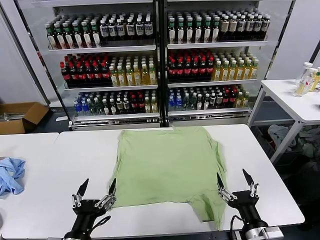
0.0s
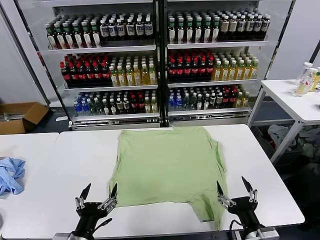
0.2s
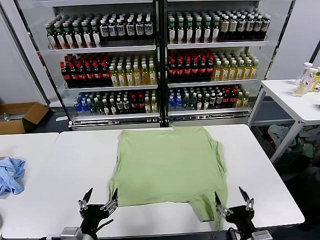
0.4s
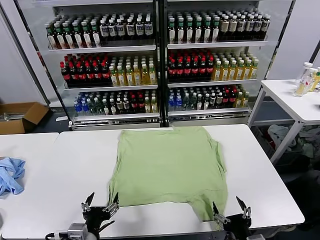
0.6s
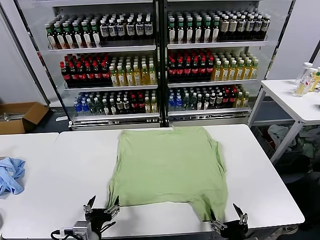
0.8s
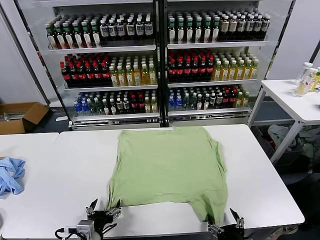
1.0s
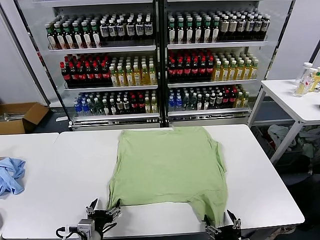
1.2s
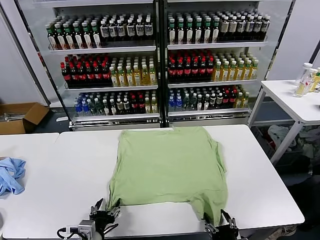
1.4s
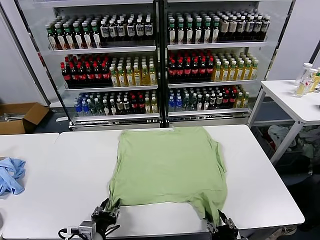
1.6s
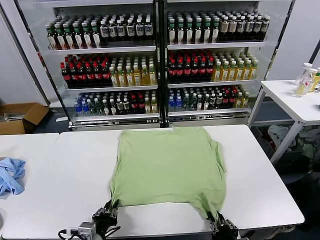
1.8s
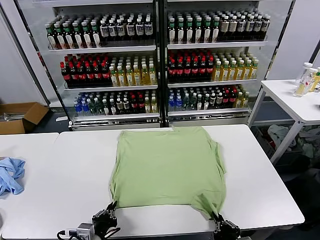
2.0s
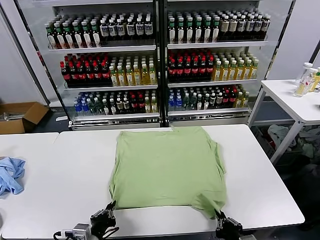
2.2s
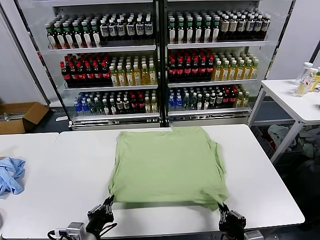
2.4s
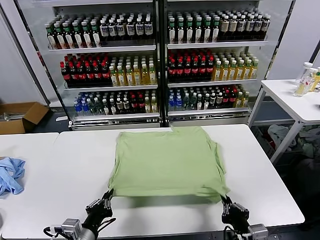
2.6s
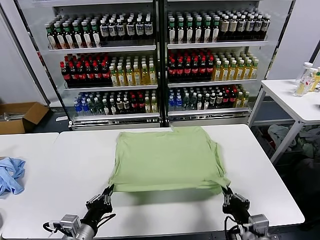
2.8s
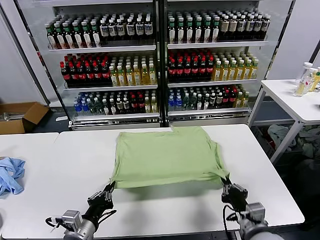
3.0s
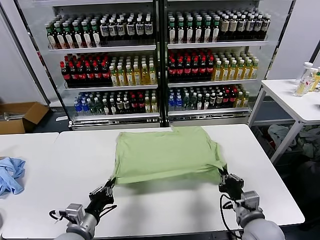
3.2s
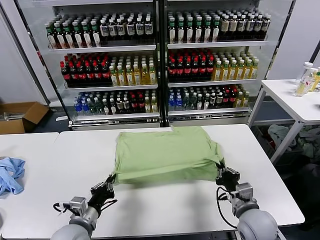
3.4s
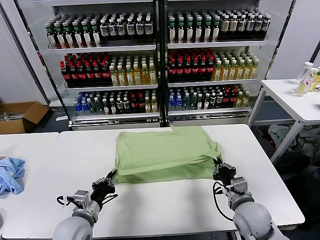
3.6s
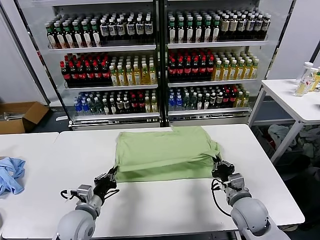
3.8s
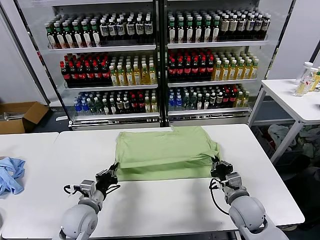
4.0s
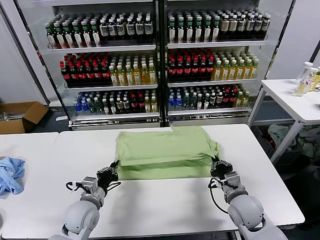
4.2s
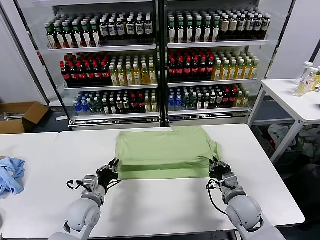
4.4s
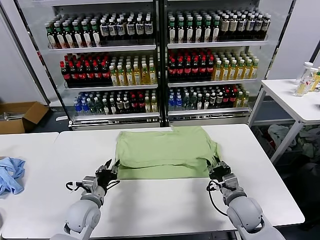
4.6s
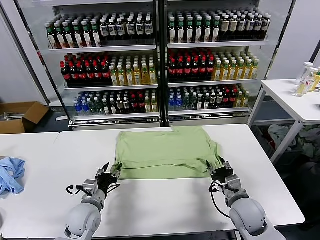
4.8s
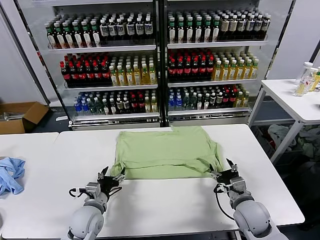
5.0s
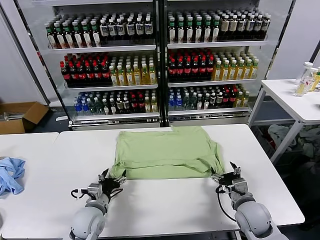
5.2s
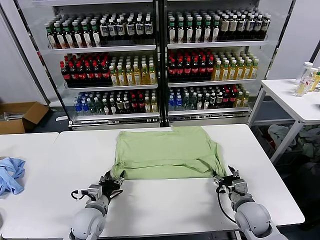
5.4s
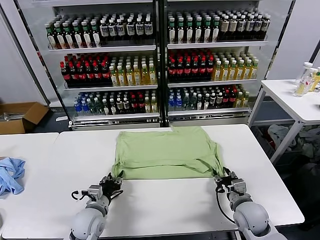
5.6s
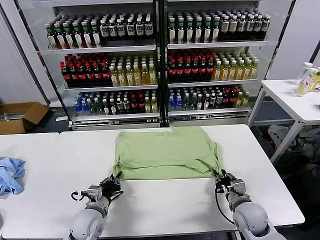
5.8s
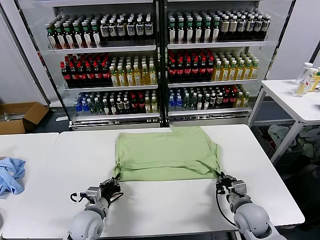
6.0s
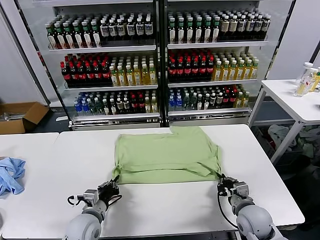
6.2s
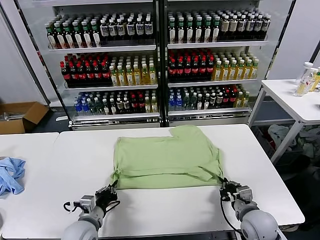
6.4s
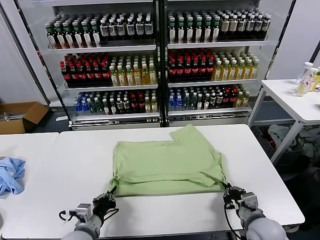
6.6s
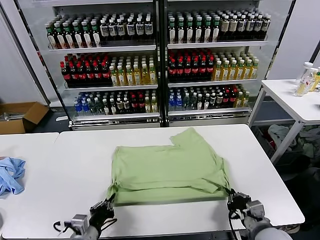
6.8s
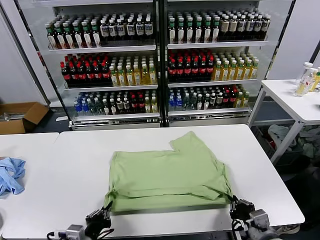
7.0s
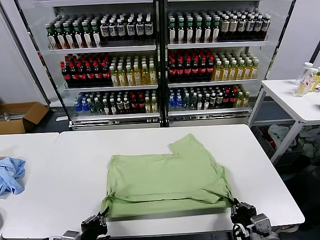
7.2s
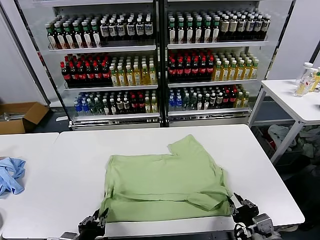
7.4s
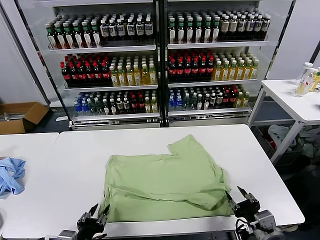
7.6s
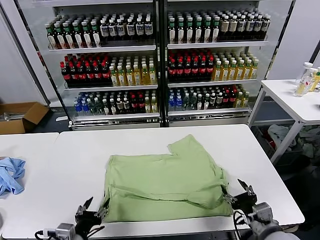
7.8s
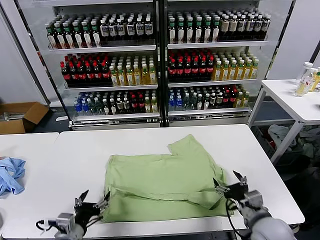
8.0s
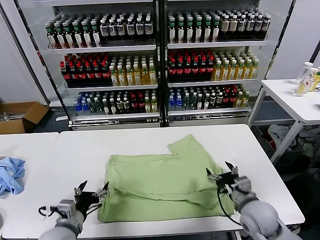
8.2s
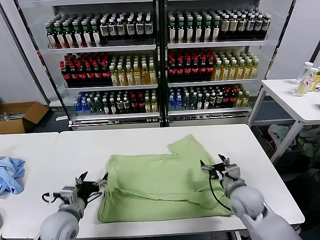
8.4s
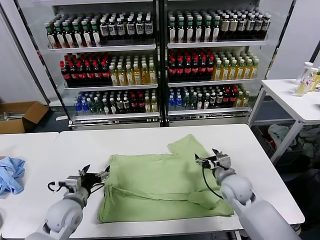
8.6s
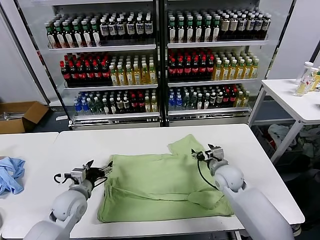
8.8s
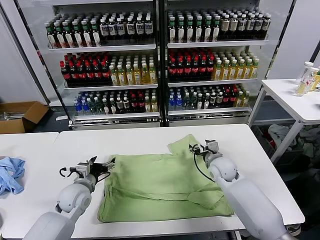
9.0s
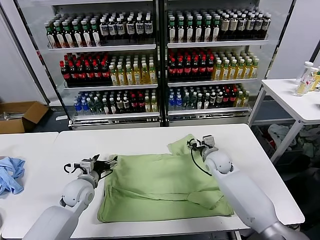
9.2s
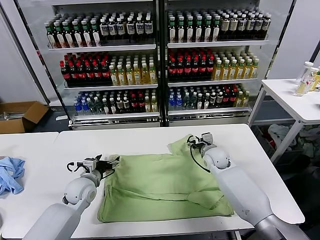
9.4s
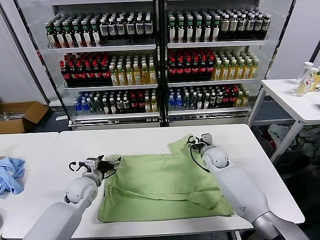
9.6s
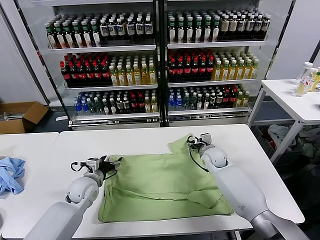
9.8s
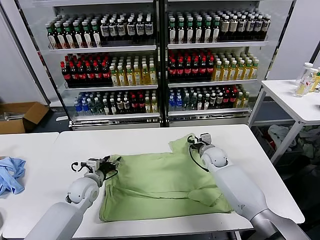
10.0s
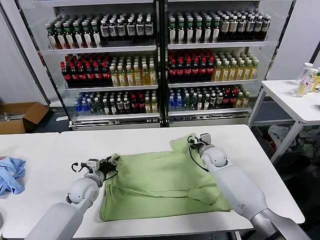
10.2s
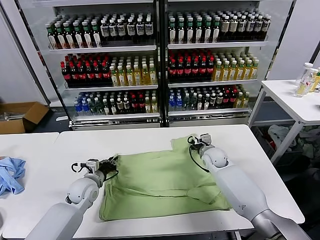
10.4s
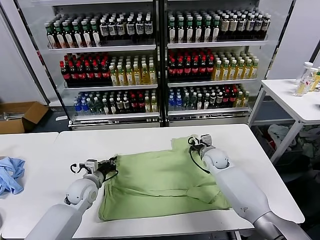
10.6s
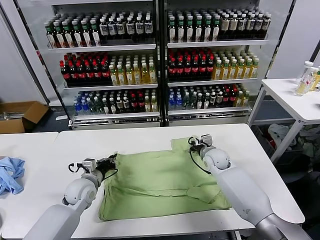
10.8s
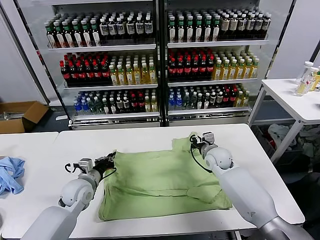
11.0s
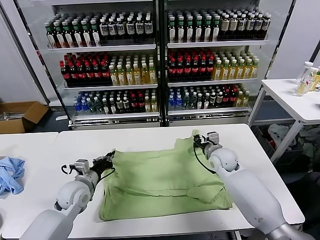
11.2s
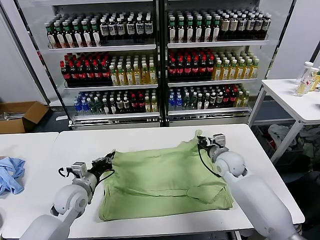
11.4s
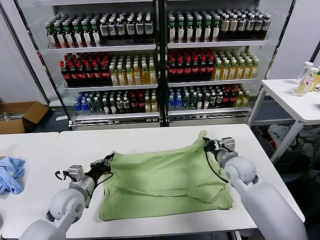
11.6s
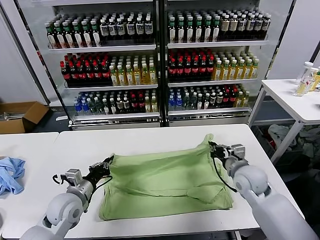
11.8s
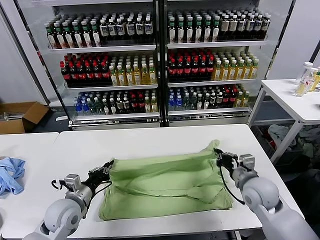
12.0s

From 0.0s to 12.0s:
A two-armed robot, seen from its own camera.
Task of the whole recording: fold and organize the clothes.
Step, from 0.0s to 2.2s: use both grippers simultaneously to clamp the lower edge of the clothing fabric.
Step, from 2.4s to 4.8s: use both grippers to drag the lower edge of the fabric forward and fold it over the upper edge.
Step, from 5.0s to 7.4s: Drag the clothes downward with both gripper.
Step, from 7.6s to 10.4s: use both grippers simultaneously to clamp the upper edge of the clothing fabric.
From 1.6s to 3.0s: The right gripper shifts about 10 cm forward, while the left gripper ends up approximately 5 cm from where it was.
From 3.0s to 4.4s: The left gripper goes approximately 15 cm forward, and opens up. The right gripper travels forward by roughly 10 cm, and opens up.
From 4.4s to 6.0s: The right gripper closes up. Meanwhile the left gripper closes.
From 6.0s to 7.6s: The left gripper moves backward, roughly 15 cm, and opens up; the right gripper moves backward and upward, roughly 15 cm, and opens up.
From 7.6s to 9.0s: Both grippers move forward, roughly 25 cm. The left gripper opens its fingers.
From 9.0s to 10.4s: The left gripper closes. Meanwhile the right gripper shifts by approximately 5 cm, and closes.
From 10.4s to 12.0s: The right gripper moves backward, to the right and upward, about 25 cm. Meanwhile the left gripper moves backward, approximately 10 cm.

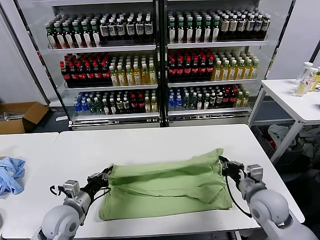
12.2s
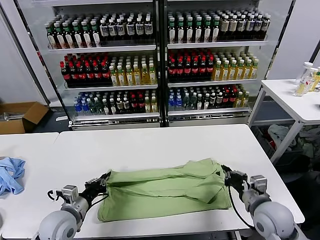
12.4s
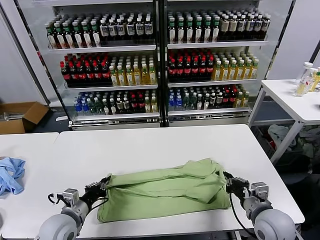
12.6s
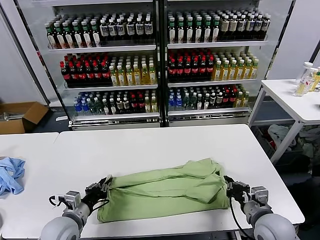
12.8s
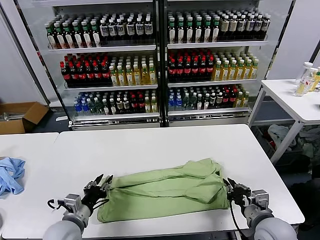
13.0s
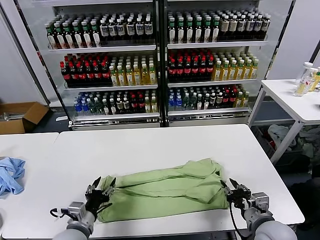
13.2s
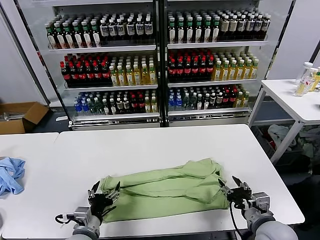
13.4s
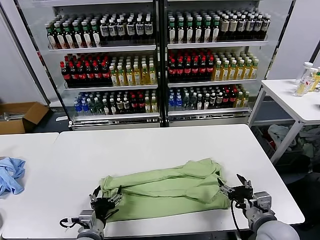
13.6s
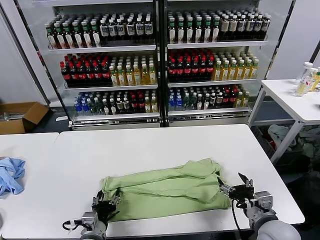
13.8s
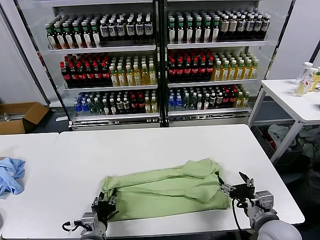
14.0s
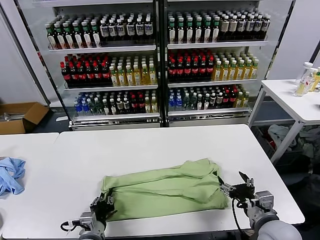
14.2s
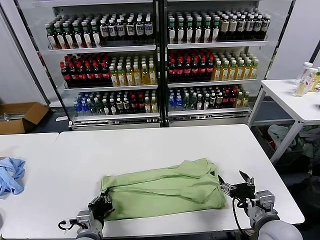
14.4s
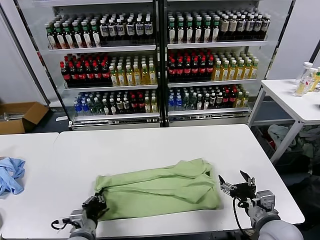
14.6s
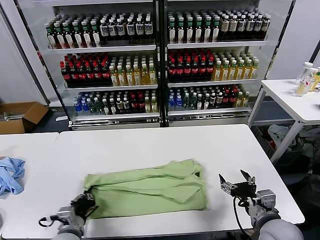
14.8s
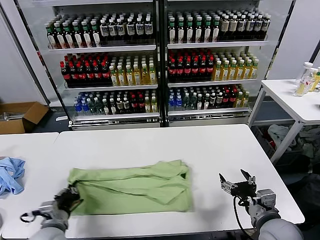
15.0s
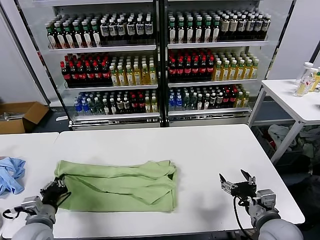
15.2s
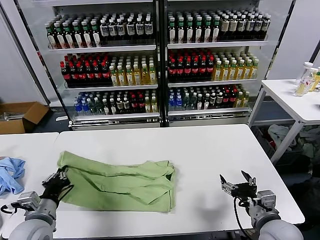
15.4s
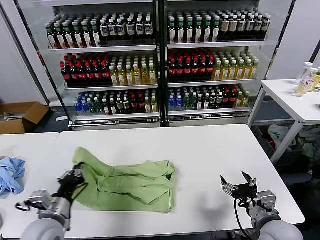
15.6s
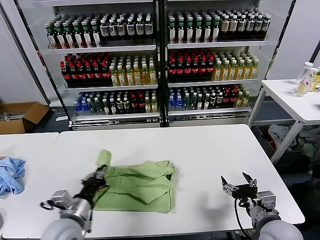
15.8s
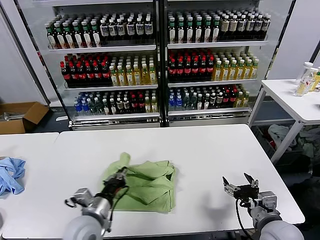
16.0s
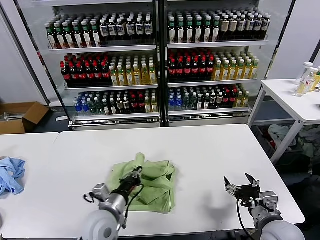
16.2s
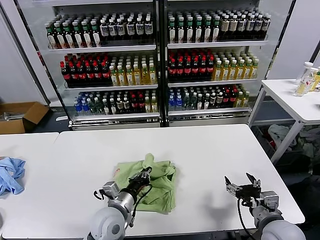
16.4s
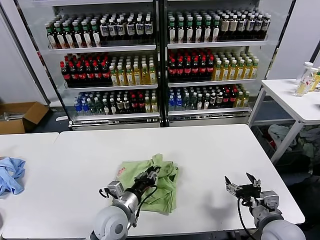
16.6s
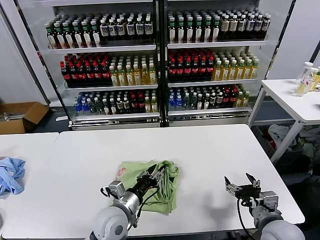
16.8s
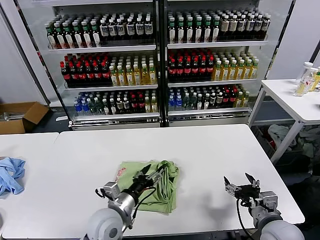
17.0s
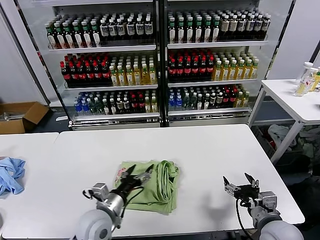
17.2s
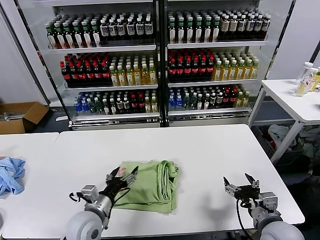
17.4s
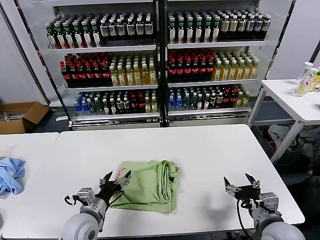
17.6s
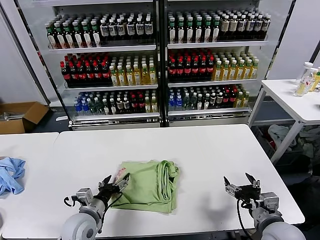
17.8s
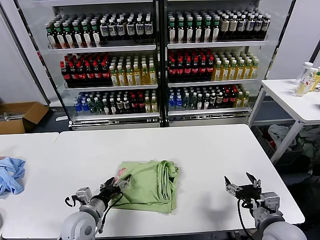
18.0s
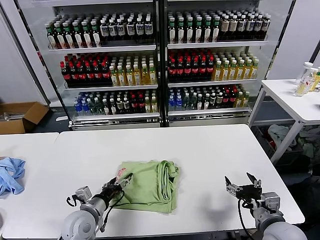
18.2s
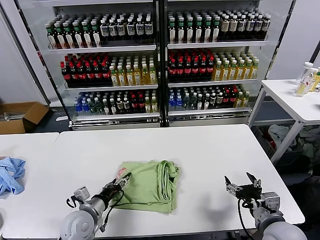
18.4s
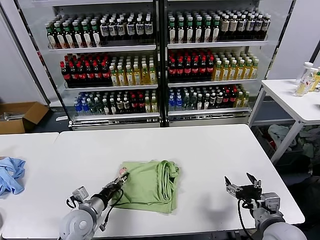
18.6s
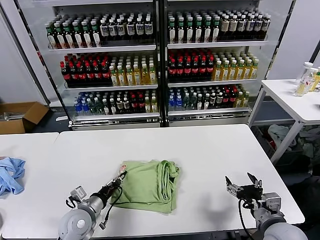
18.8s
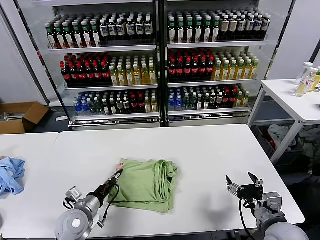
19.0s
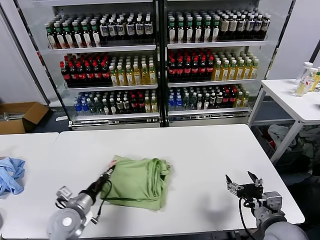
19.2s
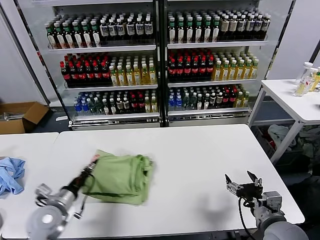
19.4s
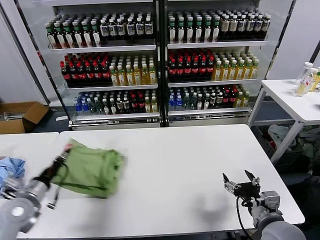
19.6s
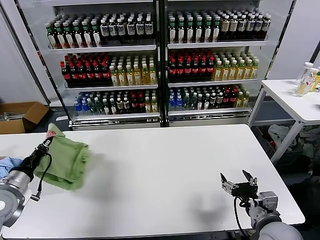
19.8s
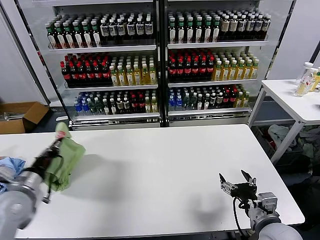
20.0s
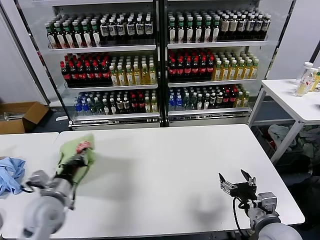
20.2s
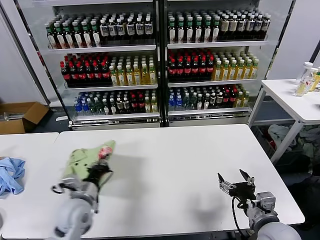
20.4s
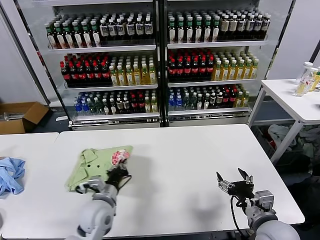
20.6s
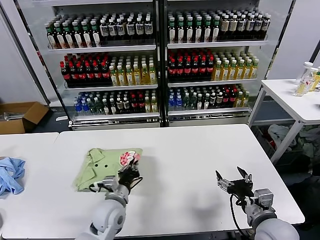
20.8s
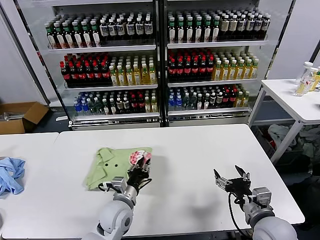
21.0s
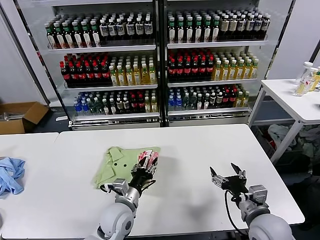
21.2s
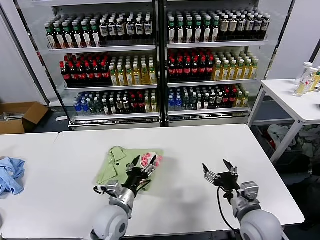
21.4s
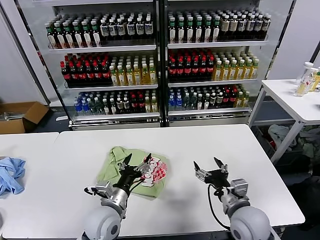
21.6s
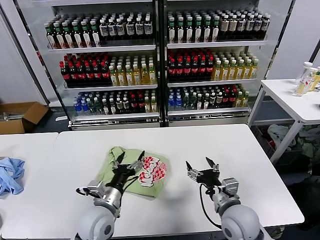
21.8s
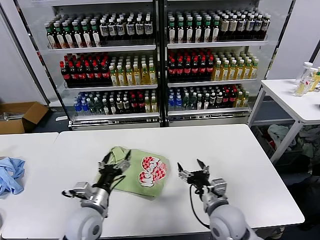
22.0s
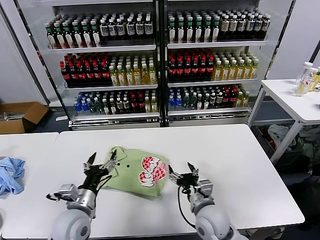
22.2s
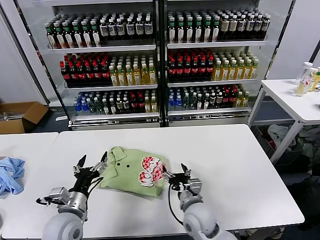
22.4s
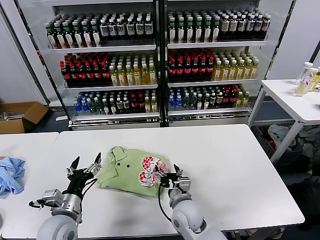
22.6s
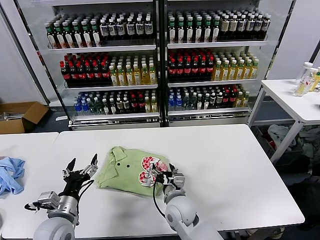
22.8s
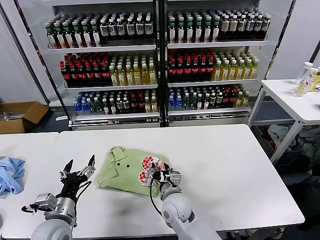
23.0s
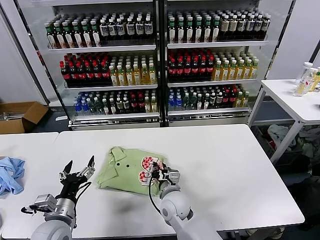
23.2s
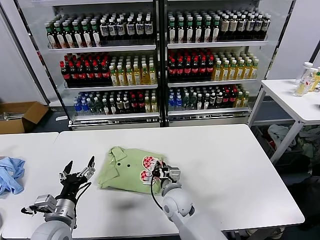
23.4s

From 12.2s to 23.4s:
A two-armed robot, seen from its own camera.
Task of the whole recording: fold and organize the clothes.
Step, from 13.2s to 14.4s: use the left gripper to clamp the left edge of the fabric.
Step, from 14.6s to 16.8s: use the left gripper to drag the left edge of the fabric to the left and folds it over the right edge.
Step, from 17.0s to 21.4s: Flip the folded clothes over with left gripper.
From 12.2s to 13.8s: The right gripper is displaced backward by about 5 cm, and opens. Meanwhile the left gripper goes approximately 10 cm to the right, backward and downward, and opens up.
From 13.8s to 15.4s: The left gripper moves to the left and upward, roughly 15 cm, and closes.
From 15.4s to 17.0s: The left gripper moves to the right, approximately 20 cm, and opens its fingers.
From 17.0s to 18.6s: The left gripper goes approximately 10 cm to the left and downward, and closes.
From 18.6s to 20.2s: The left gripper heads upward and to the left, covering roughly 10 cm, and closes its fingers.
From 20.2s to 21.8s: The left gripper heads to the right, covering about 15 cm, and opens up. Meanwhile the right gripper heads to the left and forward, covering roughly 10 cm.
From 21.8s to 23.4s: The left gripper heads to the left, covering about 10 cm, while the right gripper travels to the left, forward and downward by some 20 cm, and closes its fingers.
